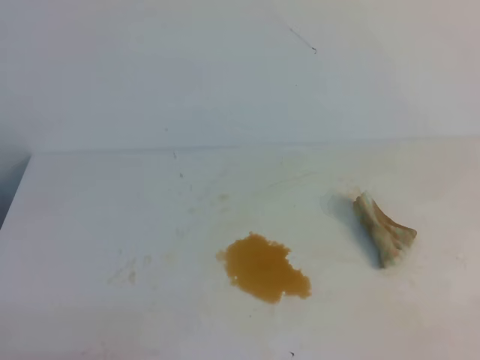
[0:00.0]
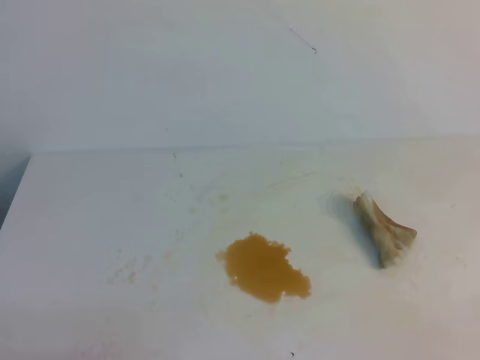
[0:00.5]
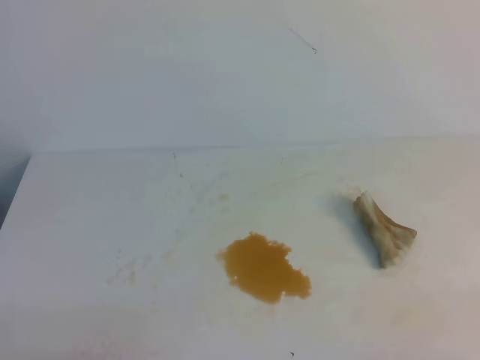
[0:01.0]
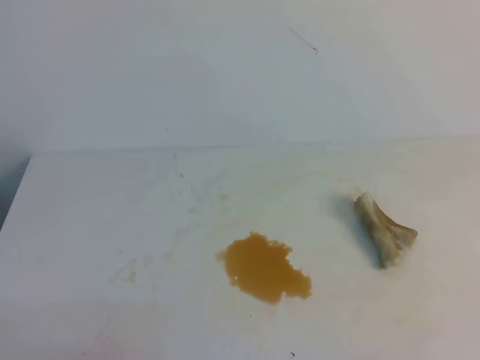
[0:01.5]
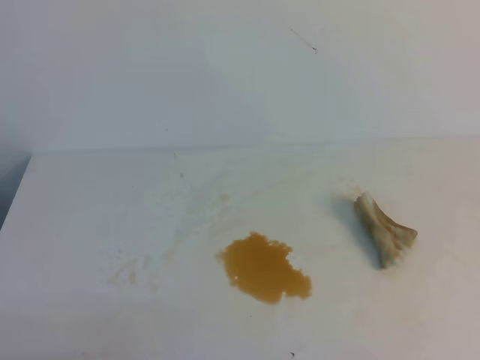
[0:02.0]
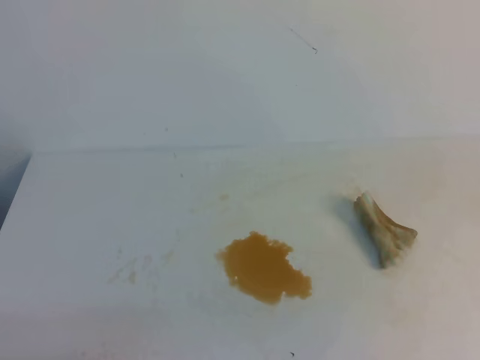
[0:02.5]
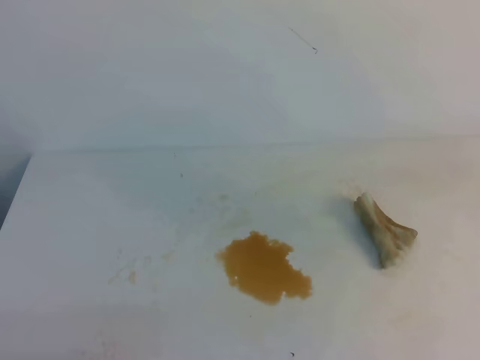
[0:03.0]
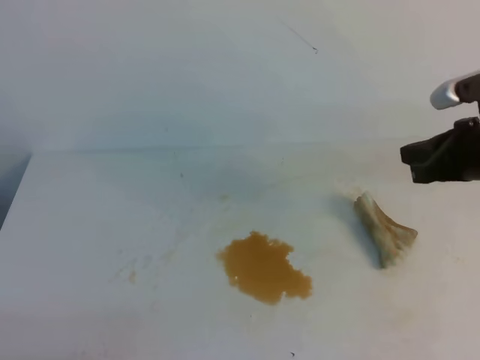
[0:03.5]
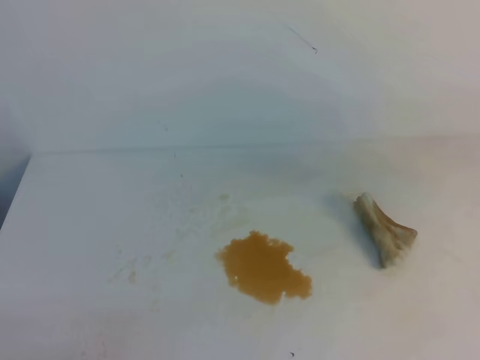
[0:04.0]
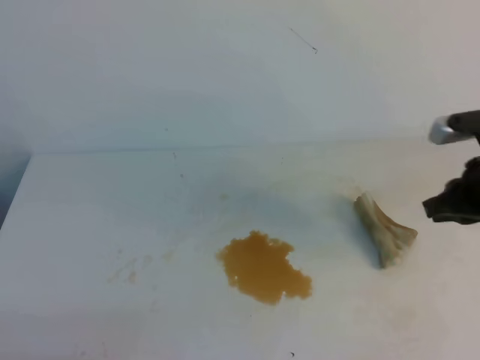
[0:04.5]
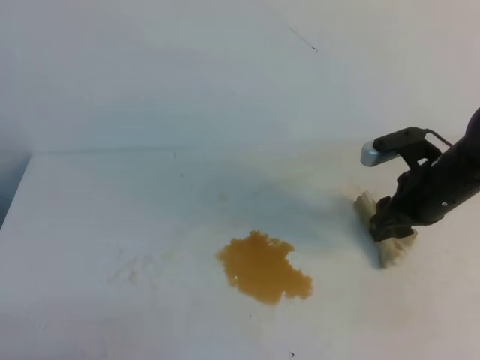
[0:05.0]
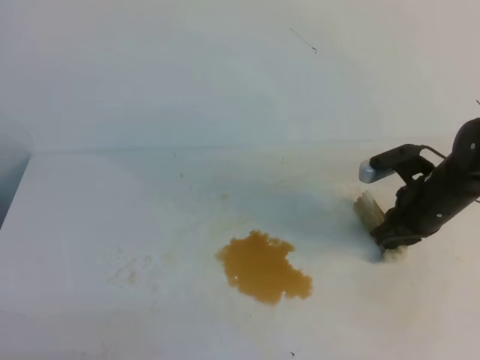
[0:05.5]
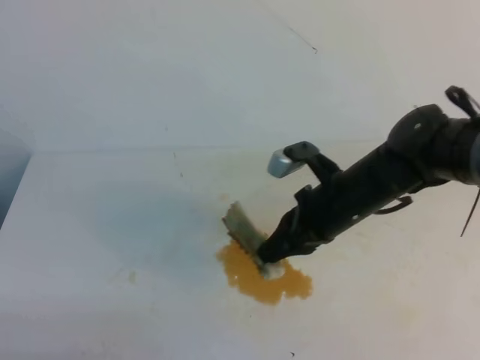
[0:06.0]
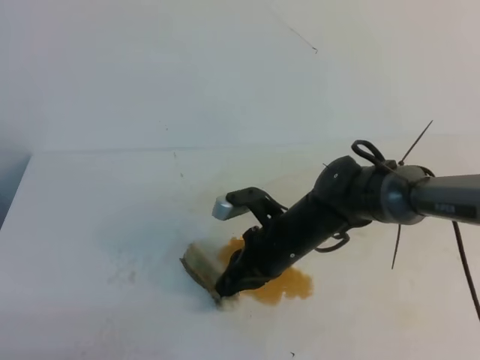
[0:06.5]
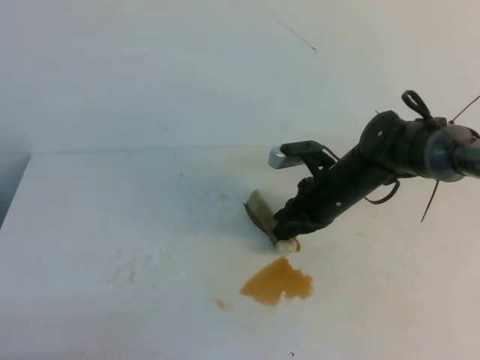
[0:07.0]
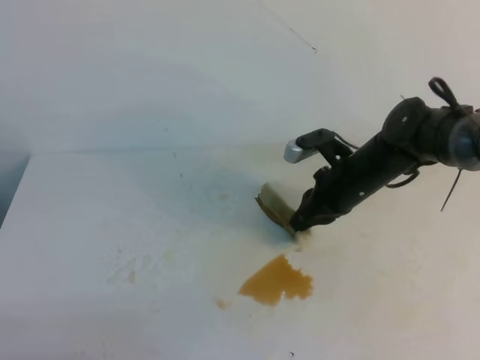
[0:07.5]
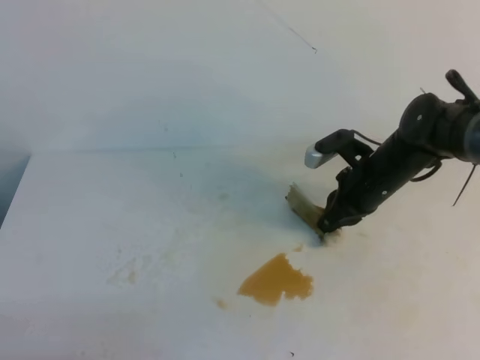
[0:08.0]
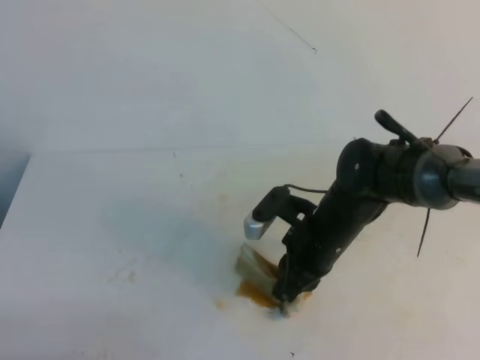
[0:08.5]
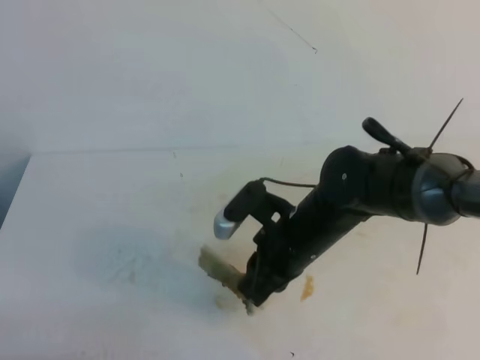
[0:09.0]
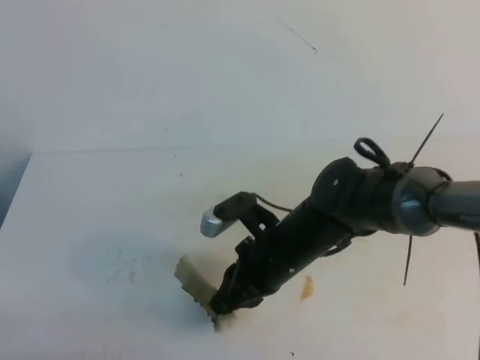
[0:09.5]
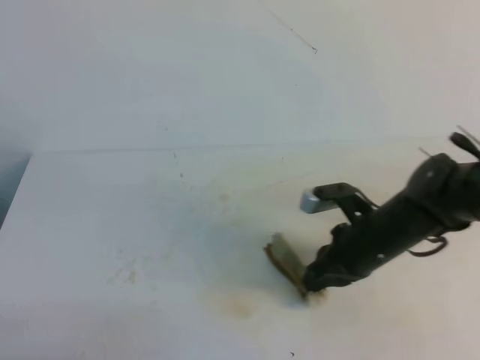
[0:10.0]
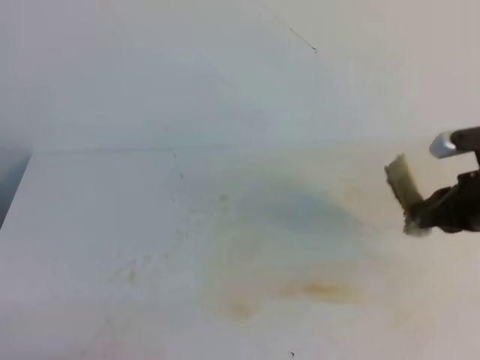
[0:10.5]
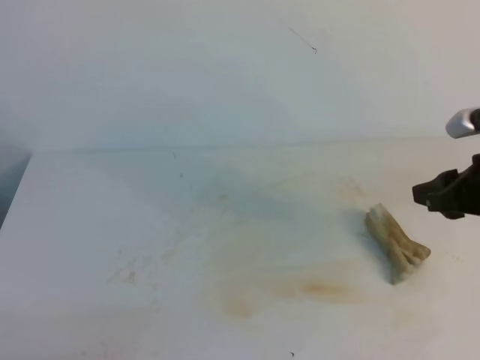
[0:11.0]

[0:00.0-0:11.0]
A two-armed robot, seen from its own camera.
0:02.0 to 0:03.5: The right gripper shifts approximately 25 cm forward.
0:03.5 to 0:05.5: The right gripper heads downward, covering some 10 cm, and opens up.
0:05.5 to 0:07.5: The right gripper shifts roughly 10 cm to the left.
0:07.5 to 0:09.0: The right gripper travels backward and to the left by approximately 15 cm.
0:09.0 to 0:11.0: The left gripper opens, then closes once more. Meanwhile the right gripper is displaced to the right by roughly 25 cm, and opens its fingers.
